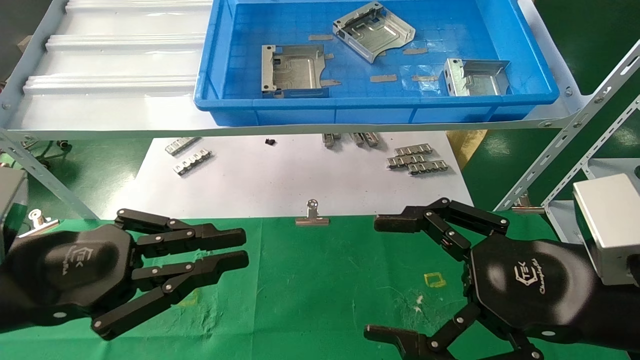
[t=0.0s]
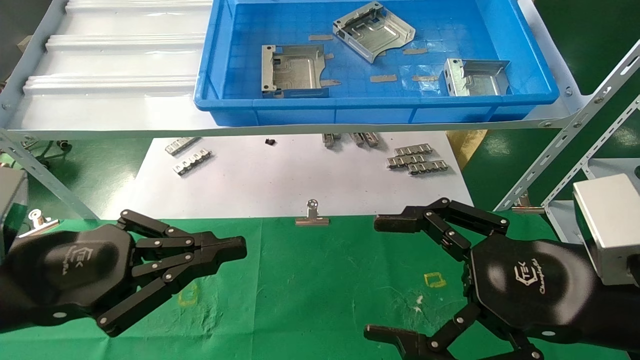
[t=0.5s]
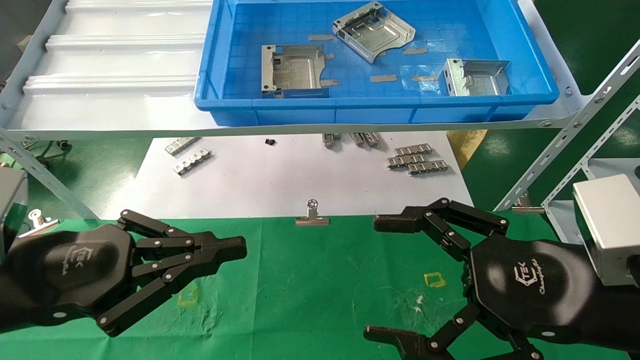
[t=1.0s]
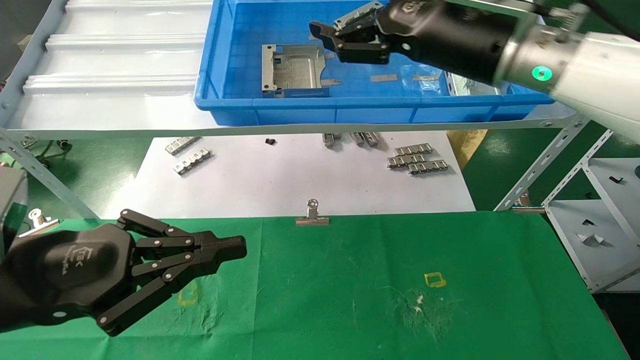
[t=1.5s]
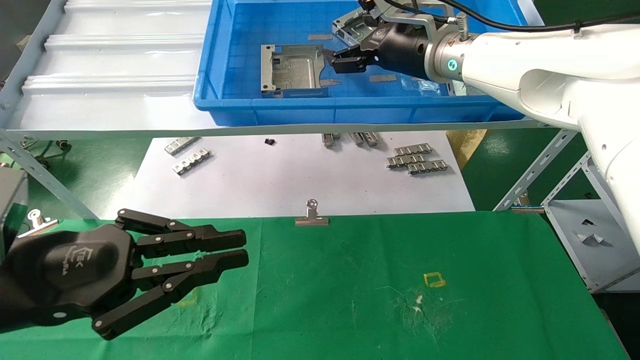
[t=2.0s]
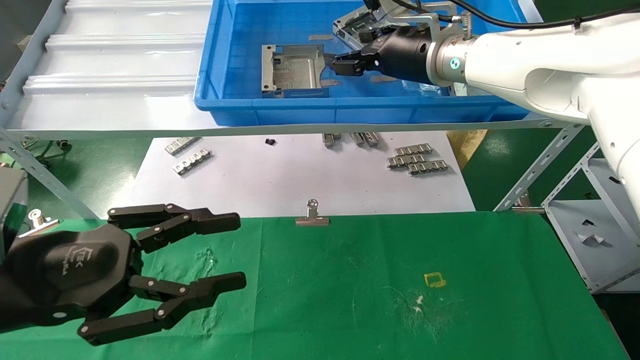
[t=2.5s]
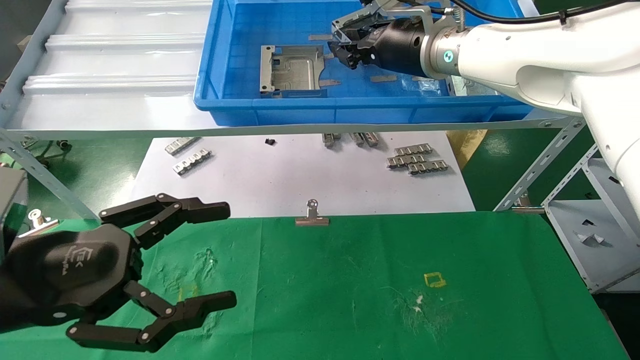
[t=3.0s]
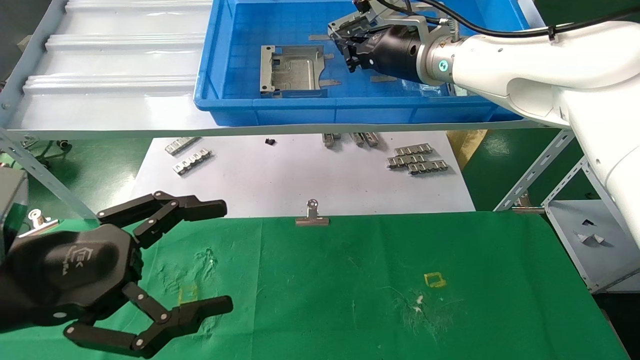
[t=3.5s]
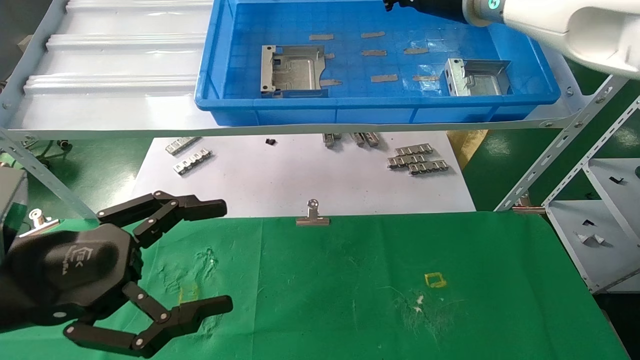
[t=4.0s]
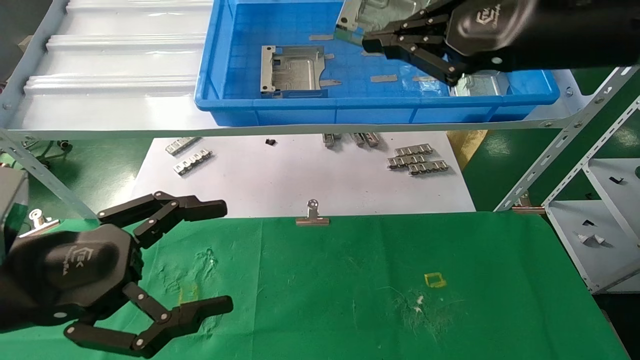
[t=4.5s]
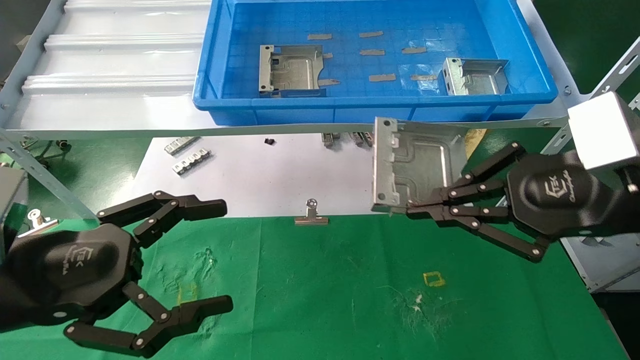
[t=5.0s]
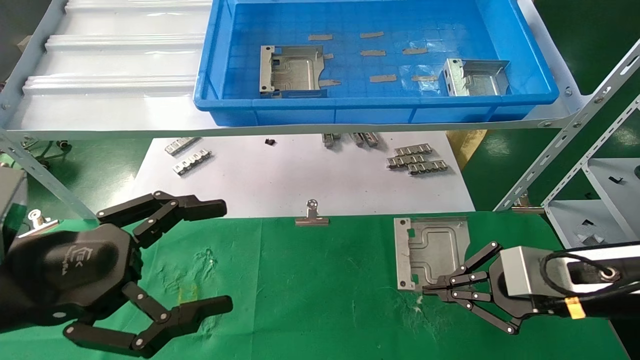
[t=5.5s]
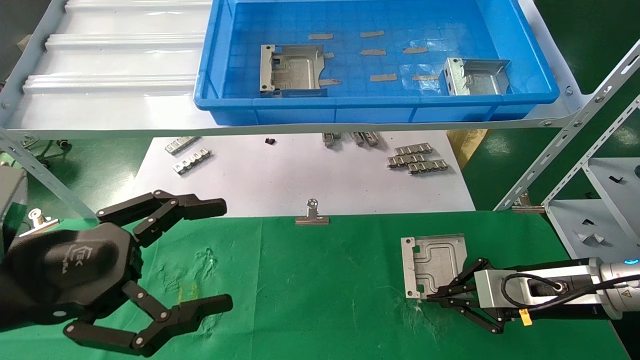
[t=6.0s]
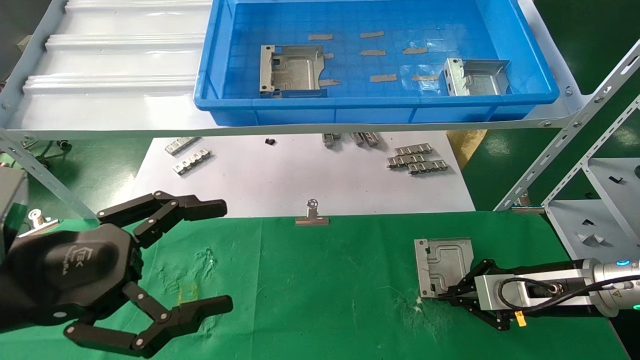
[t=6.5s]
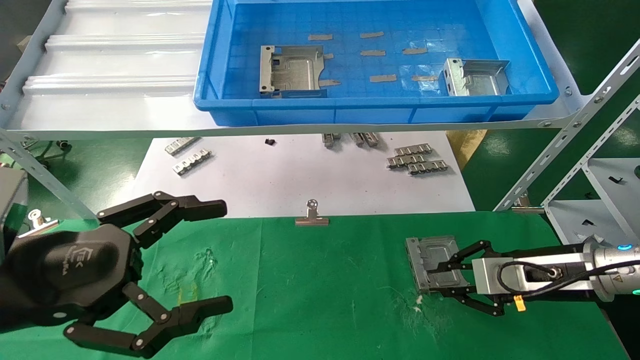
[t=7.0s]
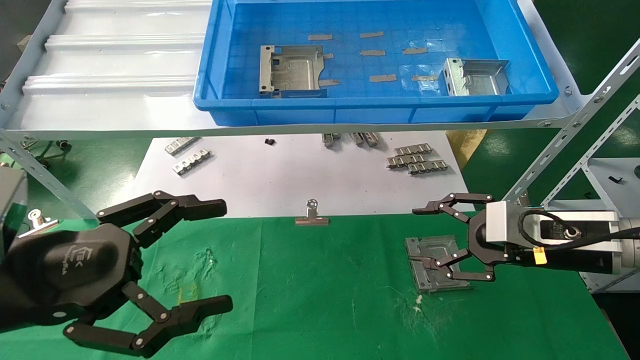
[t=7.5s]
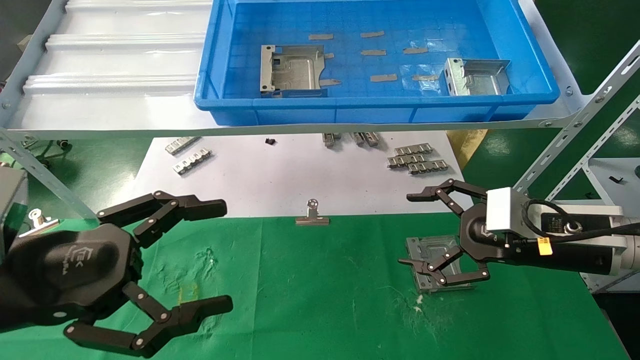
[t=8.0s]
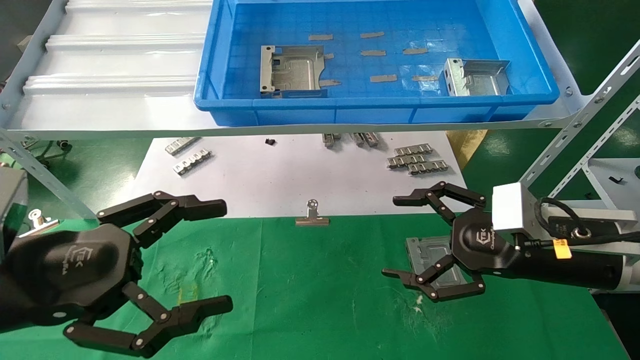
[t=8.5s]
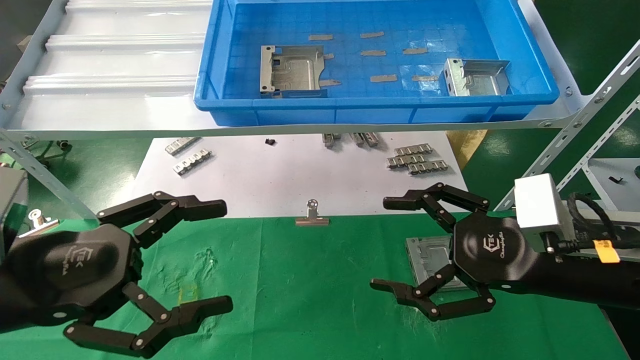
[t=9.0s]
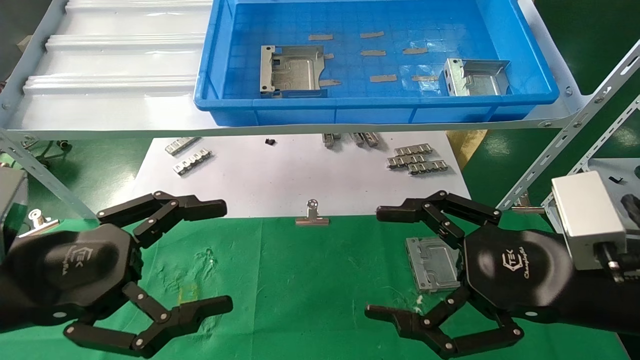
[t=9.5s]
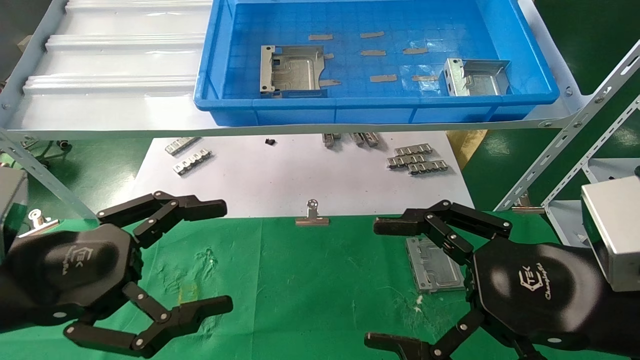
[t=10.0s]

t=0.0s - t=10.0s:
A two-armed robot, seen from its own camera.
Task of the whole recording: use the mechanical arm to pick up the parts and place them on the table.
Step, t=1.5s - t=4.5s: Pick up the hard drive bracket from the feeding area.
Step, t=5.0s - t=7.5s: Place the hard drive bracket into the box.
t=0.0s - t=2.0s: The right gripper is displaced forward, upward and to the left by approximately 35 cm.
t=2.0s - t=4.0s: The left gripper opens its fingers. Meanwhile the right gripper shifts about 5 cm upward, and closes up.
t=4.0s - t=6.0s: The right gripper goes some 35 cm downward and to the right.
t=6.0s - t=8.0s: The right gripper travels upward by about 5 cm, and opens up.
t=8.0s - t=10.0s: The right gripper heads backward and to the left, covering approximately 15 cm.
